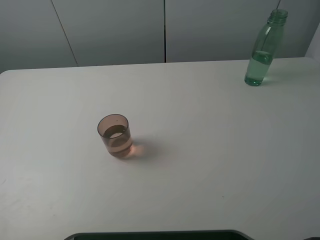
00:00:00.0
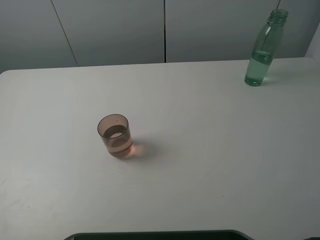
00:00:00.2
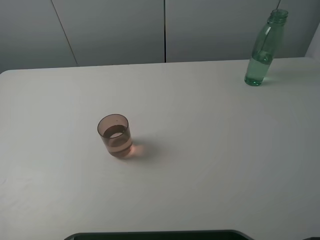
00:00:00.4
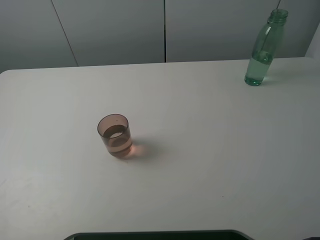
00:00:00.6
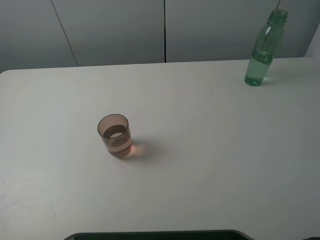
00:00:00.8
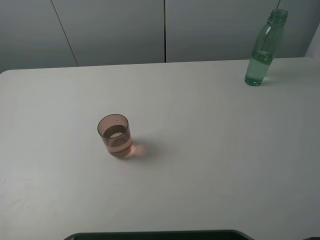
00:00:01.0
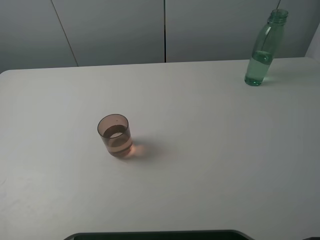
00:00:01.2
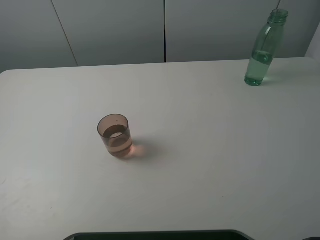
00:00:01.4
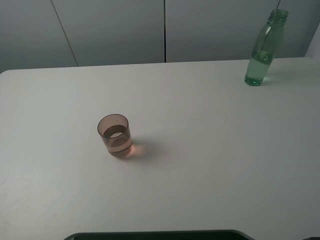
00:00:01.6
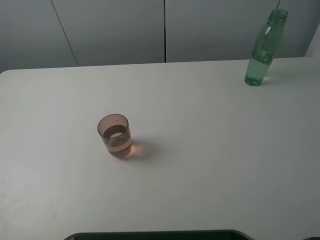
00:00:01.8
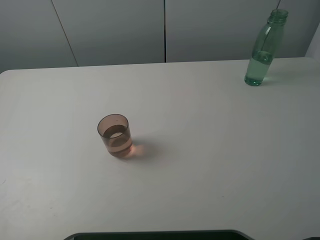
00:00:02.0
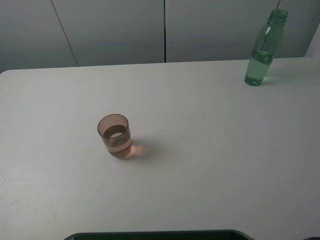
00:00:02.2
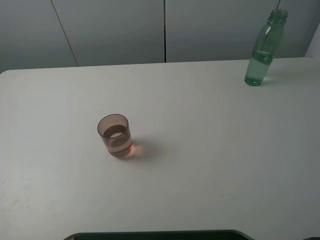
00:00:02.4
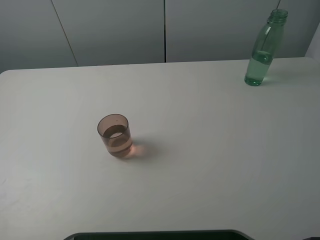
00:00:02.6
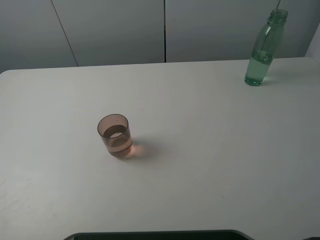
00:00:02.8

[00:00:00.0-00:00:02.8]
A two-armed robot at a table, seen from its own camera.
Task of the whole recording: pick up the bottle filled with water and pour it into the pink cup.
00:00:01.4 to 00:00:02.8: Both grippers stay put.
